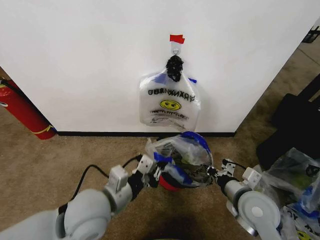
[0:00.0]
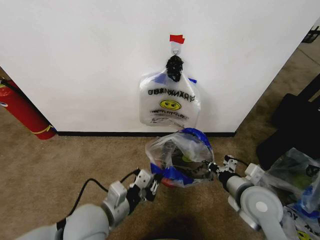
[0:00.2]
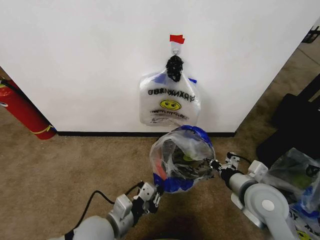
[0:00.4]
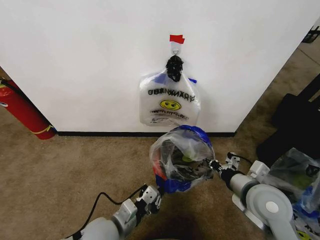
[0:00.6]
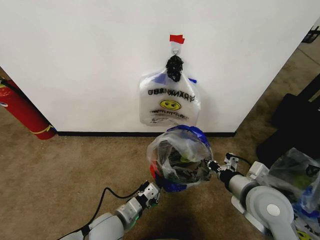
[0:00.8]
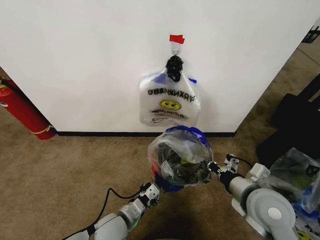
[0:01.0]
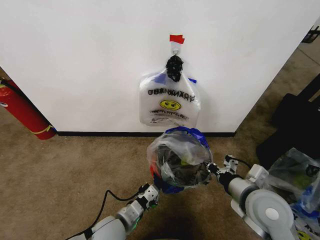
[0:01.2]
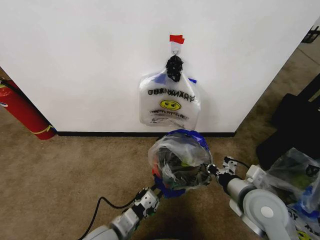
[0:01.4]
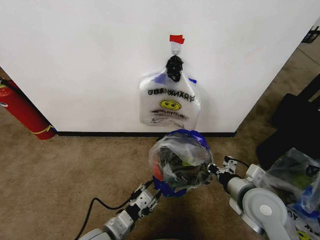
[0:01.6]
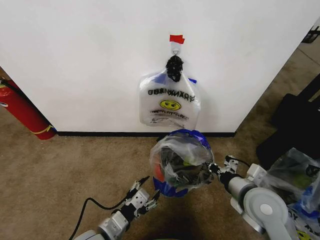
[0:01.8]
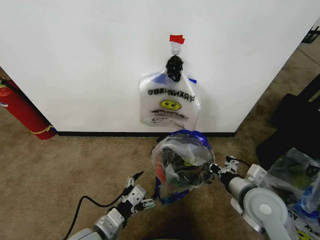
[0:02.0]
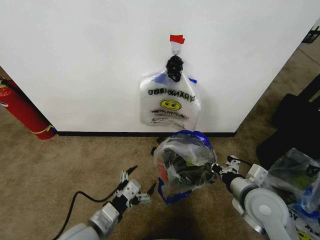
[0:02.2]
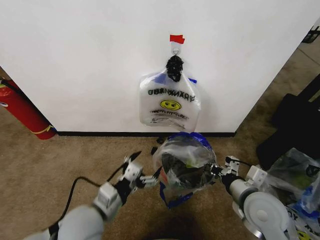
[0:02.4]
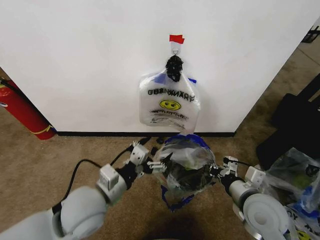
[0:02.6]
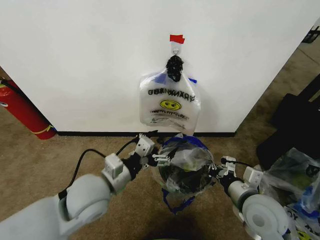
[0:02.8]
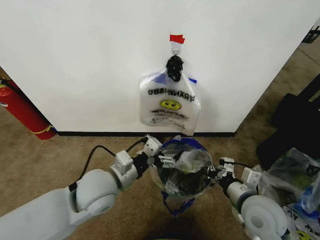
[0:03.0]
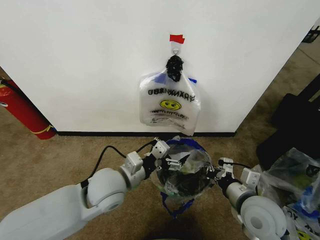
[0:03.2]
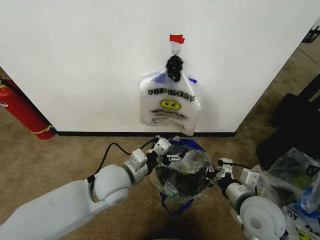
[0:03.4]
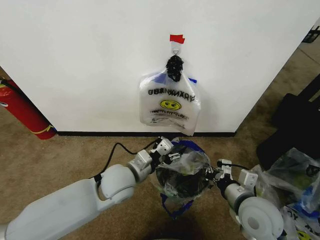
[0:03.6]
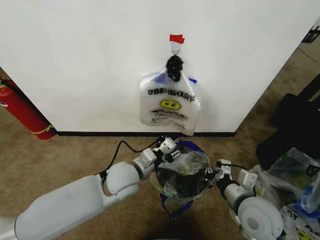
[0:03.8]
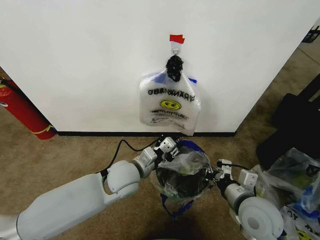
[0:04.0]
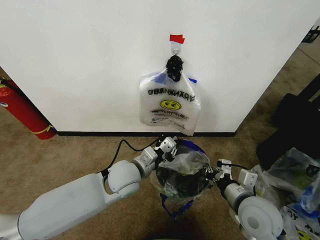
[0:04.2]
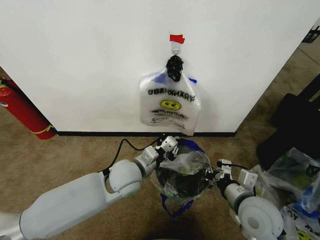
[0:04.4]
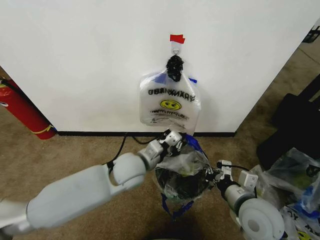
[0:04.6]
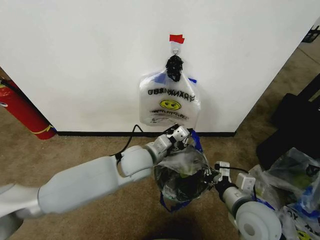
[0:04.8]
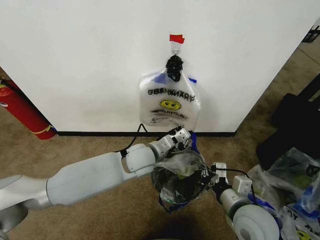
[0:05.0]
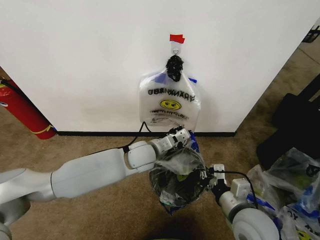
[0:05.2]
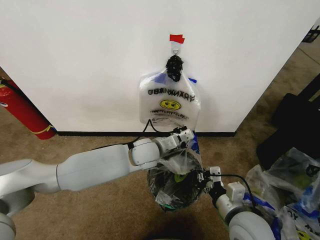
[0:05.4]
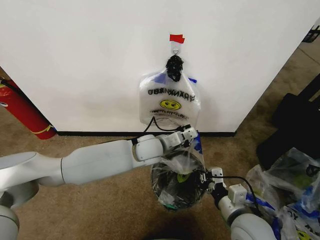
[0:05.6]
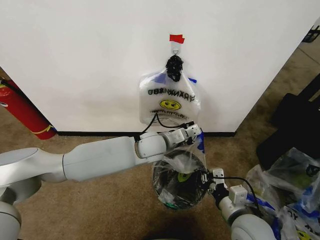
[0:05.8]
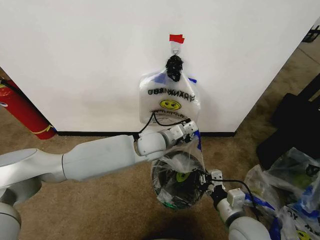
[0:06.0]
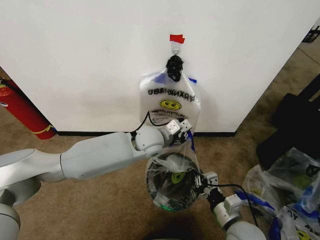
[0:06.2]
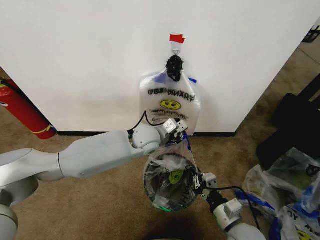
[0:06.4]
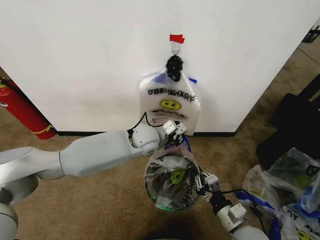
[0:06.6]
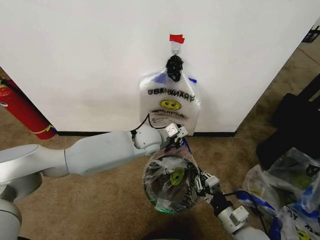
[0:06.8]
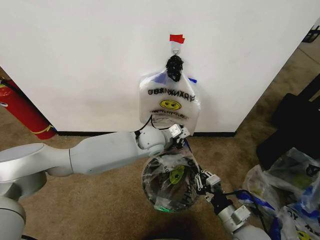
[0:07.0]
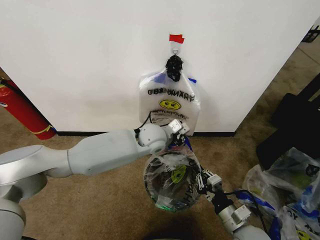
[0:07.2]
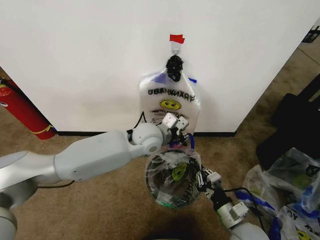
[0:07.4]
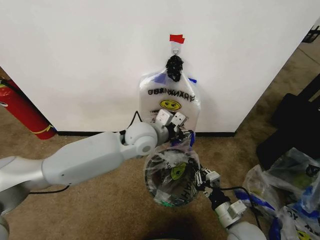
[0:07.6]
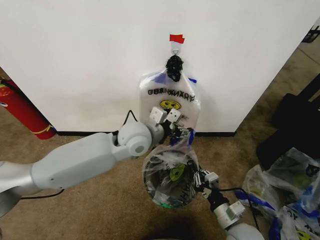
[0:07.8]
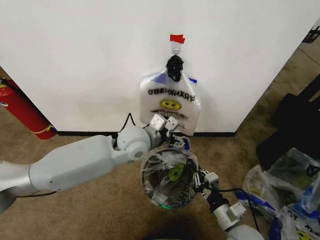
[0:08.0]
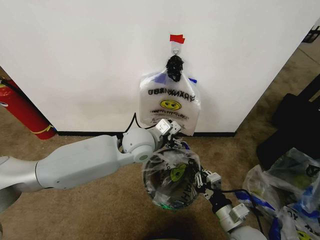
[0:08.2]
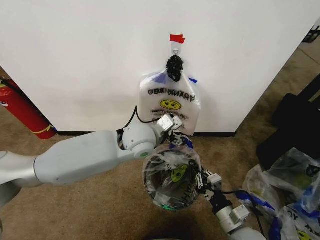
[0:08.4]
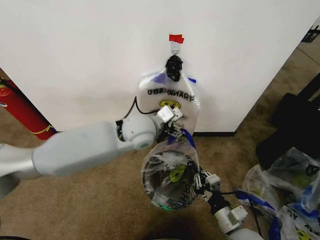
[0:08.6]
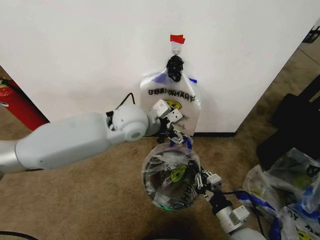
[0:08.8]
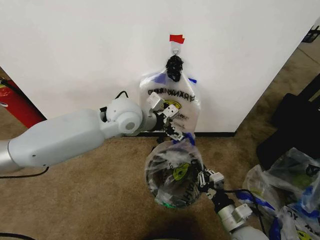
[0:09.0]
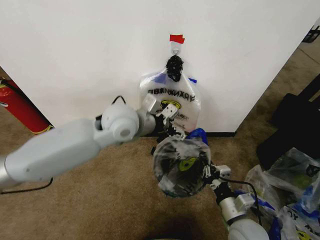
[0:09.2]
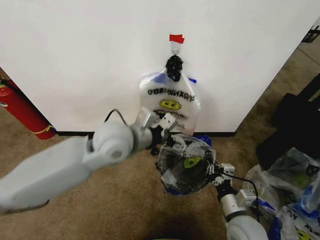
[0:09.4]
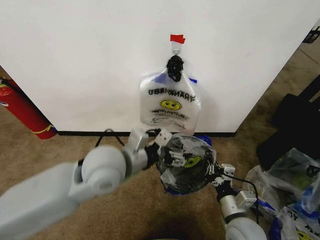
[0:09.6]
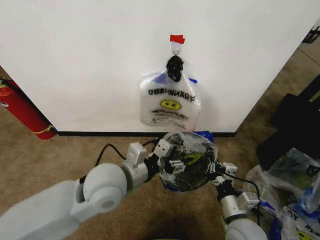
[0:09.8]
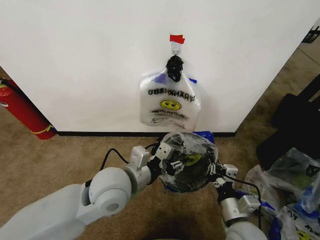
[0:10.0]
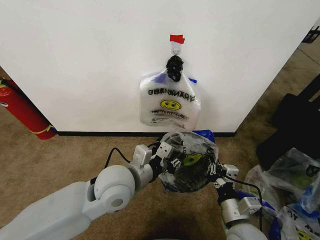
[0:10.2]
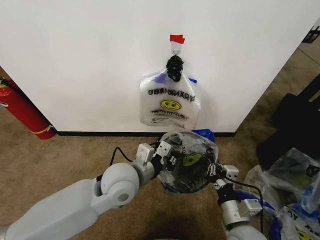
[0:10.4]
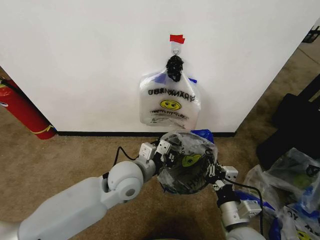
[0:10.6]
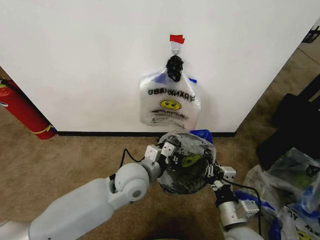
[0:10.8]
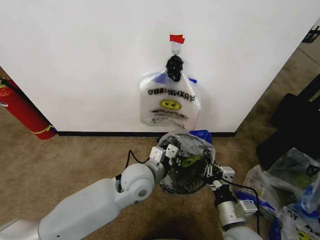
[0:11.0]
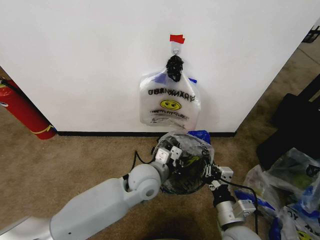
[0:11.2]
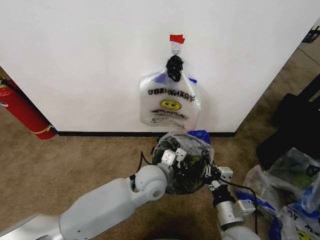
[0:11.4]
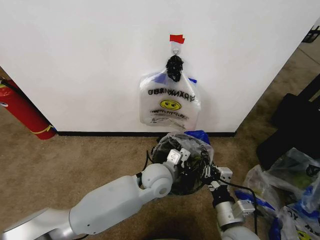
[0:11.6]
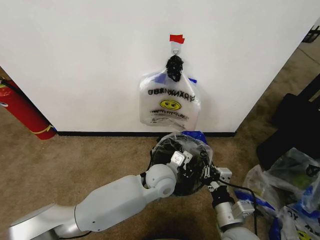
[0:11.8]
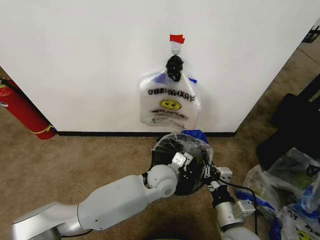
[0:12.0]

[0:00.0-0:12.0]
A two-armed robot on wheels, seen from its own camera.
Task of the whole recording: Pick up the garbage bag from the wall and place it over the trash bin.
0:00.0 to 0:01.6: The left gripper shifts some 15 cm downward and backward, and opens its fingers.
0:01.6 to 0:03.0: The left gripper moves upward and forward, approximately 15 cm, and opens.
0:03.0 to 0:04.4: The left gripper moves forward and to the right, approximately 10 cm, and closes its fingers.
0:04.4 to 0:06.0: The left gripper travels forward and to the right by approximately 10 cm. Meanwhile the right gripper moves downward, roughly 5 cm.
0:06.0 to 0:07.6: The left gripper moves upward, approximately 5 cm, and opens.
0:07.6 to 0:09.0: The left gripper goes roughly 5 cm upward, and opens up.
0:09.0 to 0:10.4: The left gripper goes about 20 cm backward and downward, and closes its fingers.
0:10.4 to 0:12.0: The left gripper moves to the right, downward and forward, roughly 15 cm.

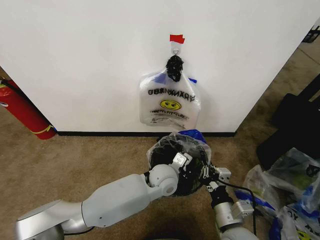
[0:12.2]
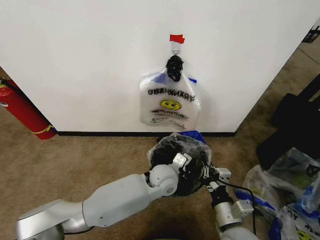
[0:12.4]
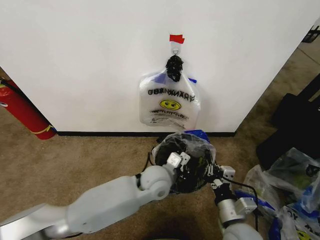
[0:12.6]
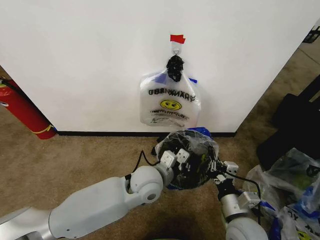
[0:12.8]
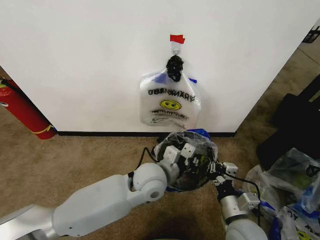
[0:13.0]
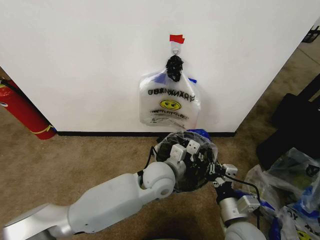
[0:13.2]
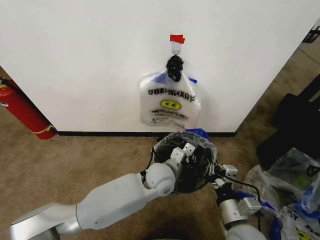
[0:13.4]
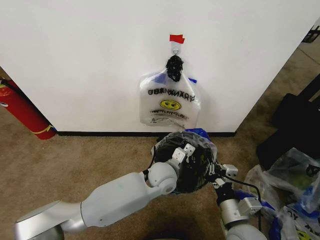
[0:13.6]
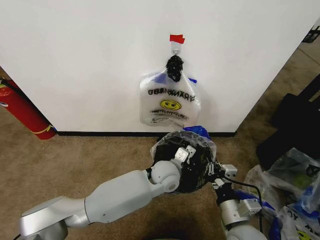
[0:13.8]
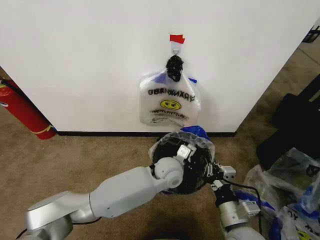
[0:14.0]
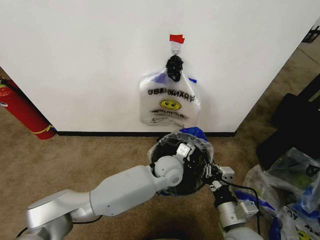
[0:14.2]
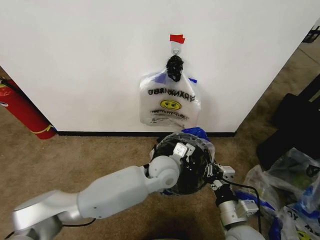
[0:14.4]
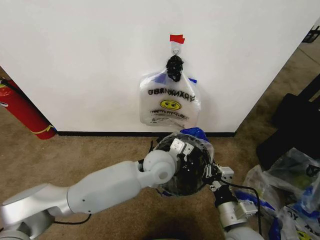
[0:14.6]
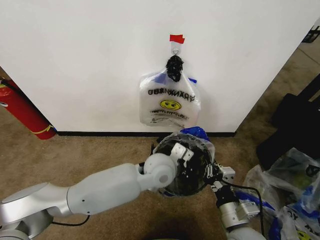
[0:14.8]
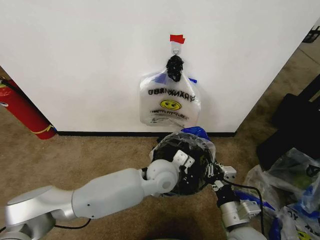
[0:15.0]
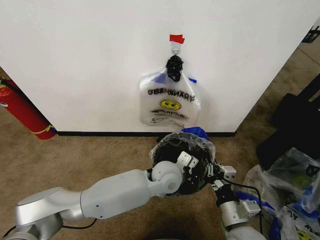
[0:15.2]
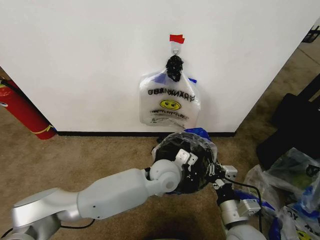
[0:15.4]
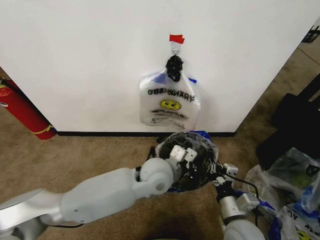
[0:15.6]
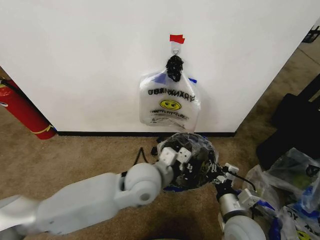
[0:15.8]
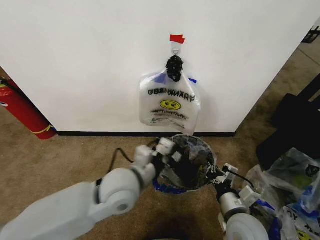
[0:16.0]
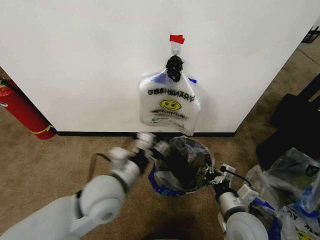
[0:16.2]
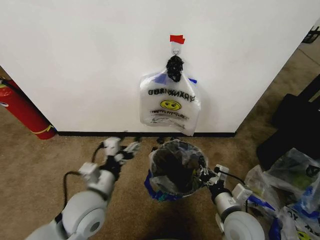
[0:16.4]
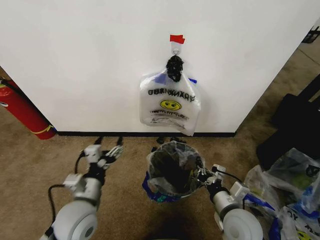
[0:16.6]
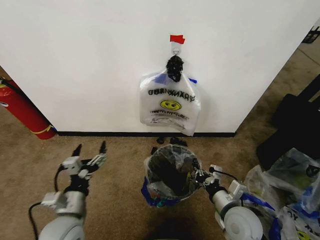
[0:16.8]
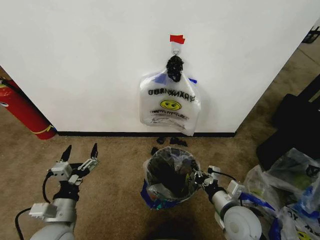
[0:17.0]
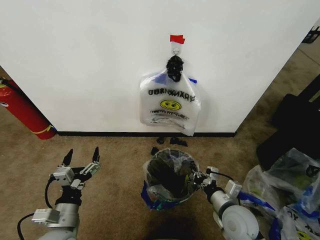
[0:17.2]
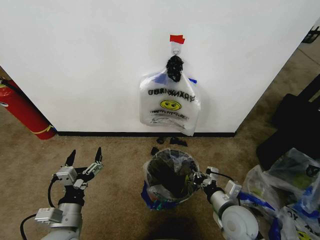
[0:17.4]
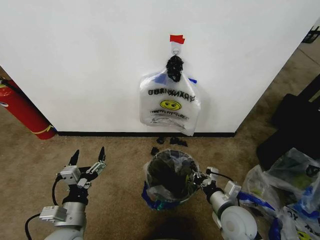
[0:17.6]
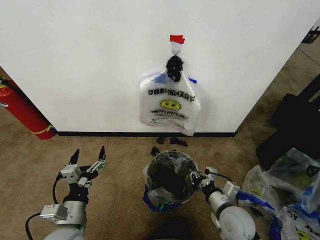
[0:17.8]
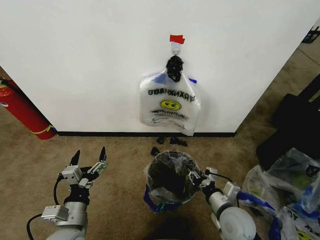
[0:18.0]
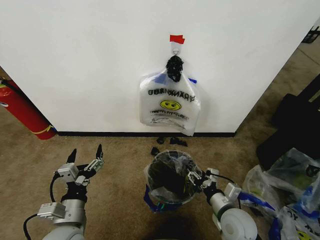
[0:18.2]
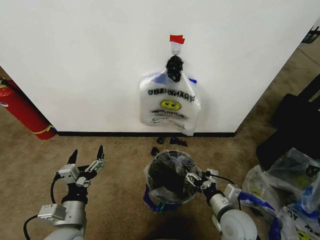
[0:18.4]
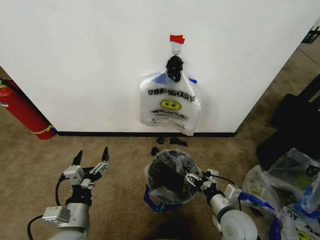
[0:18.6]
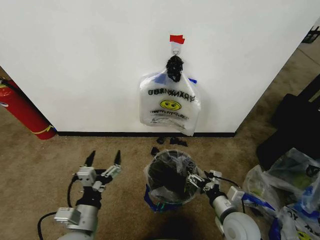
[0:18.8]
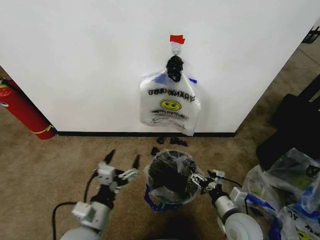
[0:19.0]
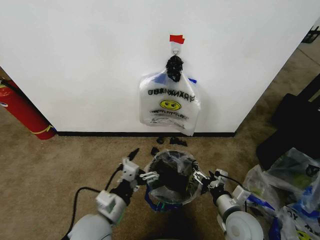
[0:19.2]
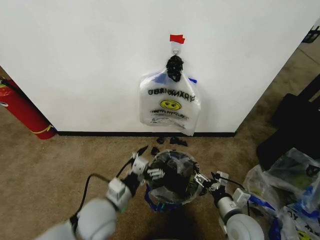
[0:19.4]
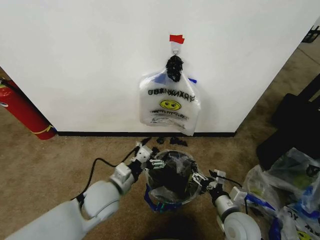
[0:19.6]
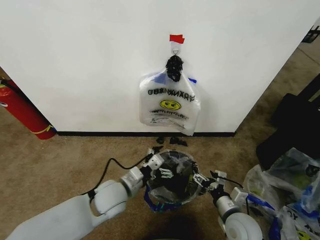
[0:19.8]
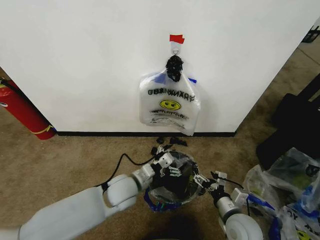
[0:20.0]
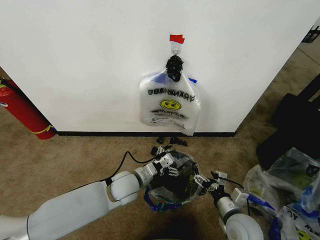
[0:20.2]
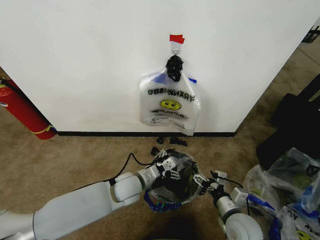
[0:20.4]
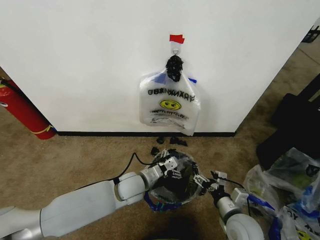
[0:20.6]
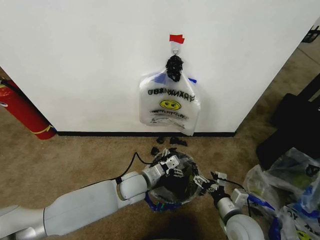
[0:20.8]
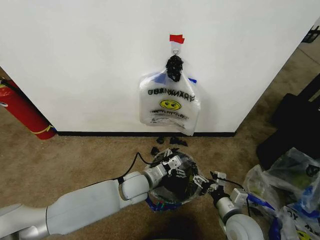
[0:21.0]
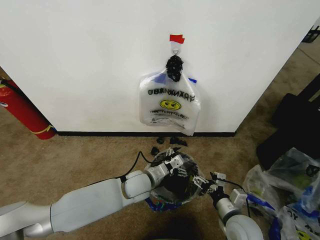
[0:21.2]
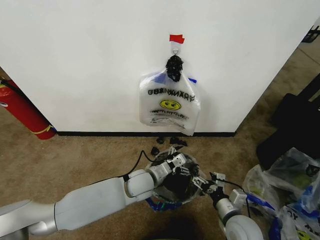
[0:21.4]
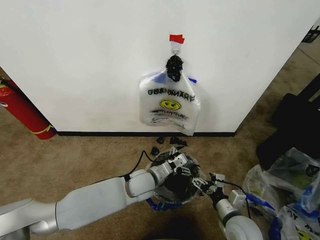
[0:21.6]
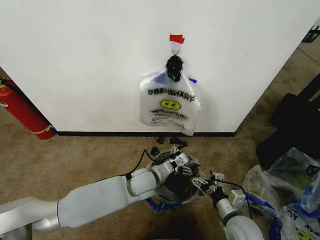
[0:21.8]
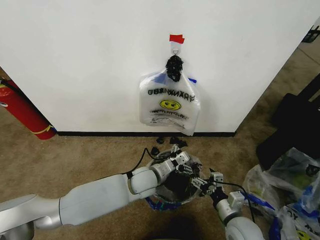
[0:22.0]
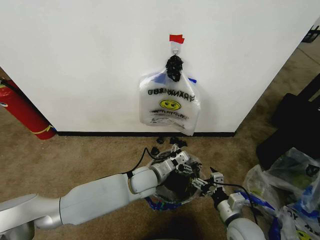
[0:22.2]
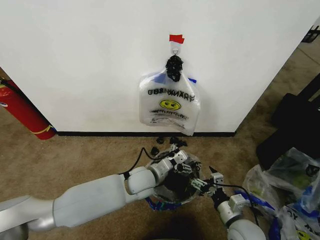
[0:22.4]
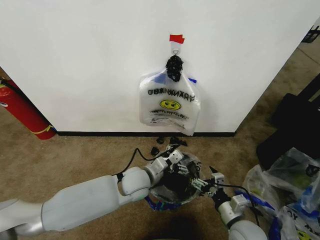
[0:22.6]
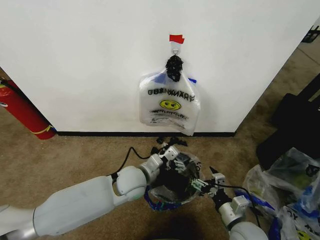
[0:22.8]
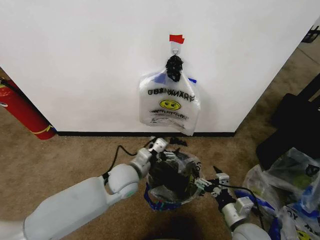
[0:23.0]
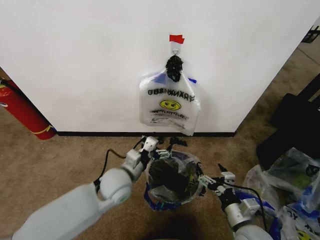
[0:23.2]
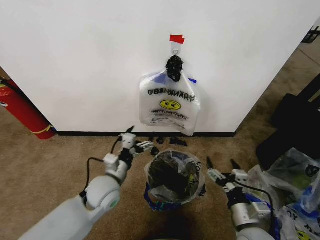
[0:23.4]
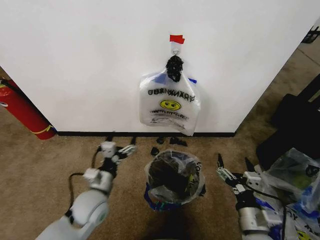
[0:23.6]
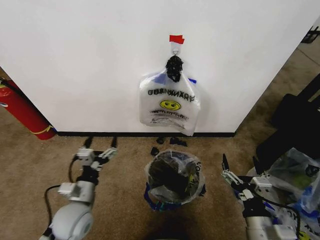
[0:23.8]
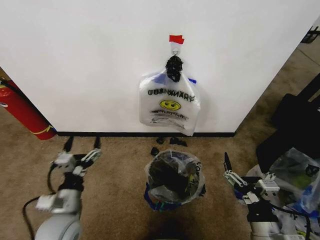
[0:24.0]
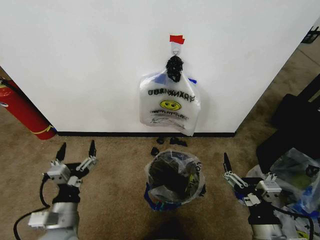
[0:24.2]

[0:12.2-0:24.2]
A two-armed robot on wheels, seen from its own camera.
Task of the whole recording: Pick up the garbage bag from the wall and place it over the trash bin.
0:12.2 to 0:13.8: The left gripper goes upward and returns, roughly 5 cm each way.
0:15.2 to 0:16.6: The left gripper goes approximately 25 cm to the left and backward, and opens.
0:16.6 to 0:18.2: The right gripper opens its fingers. The left gripper changes place by approximately 5 cm.
0:18.2 to 0:19.8: The left gripper travels forward and to the right by roughly 15 cm. Meanwhile the right gripper opens up.
0:19.8 to 0:21.2: The left gripper heads to the right and forward, covering some 10 cm.
0:21.2 to 0:22.6: The grippers move only a little.
0:22.6 to 0:24.2: The left gripper travels to the left and backward by approximately 25 cm. Meanwhile the right gripper heads upward and backward, covering approximately 15 cm.
